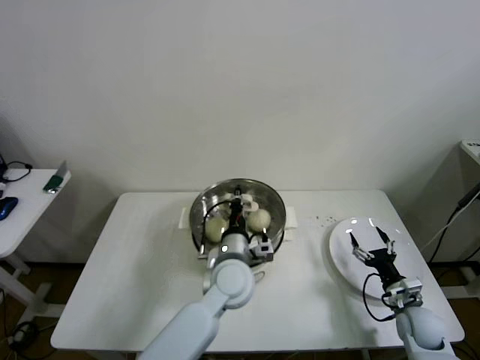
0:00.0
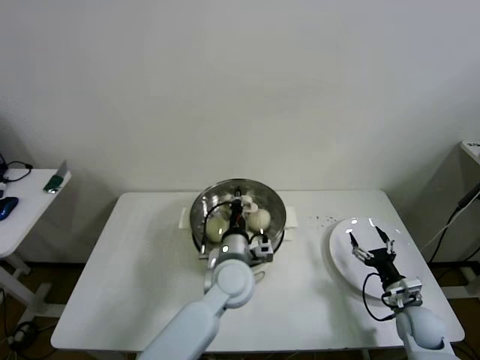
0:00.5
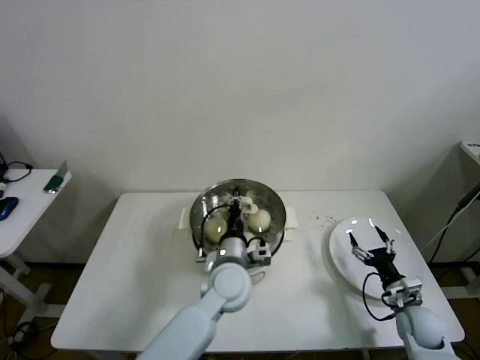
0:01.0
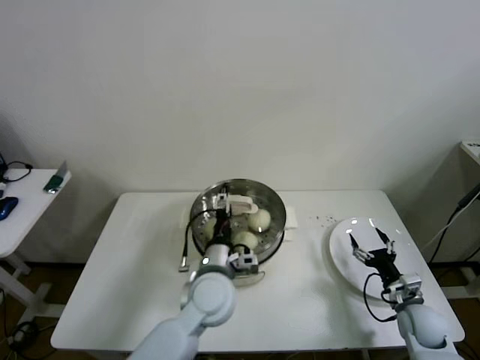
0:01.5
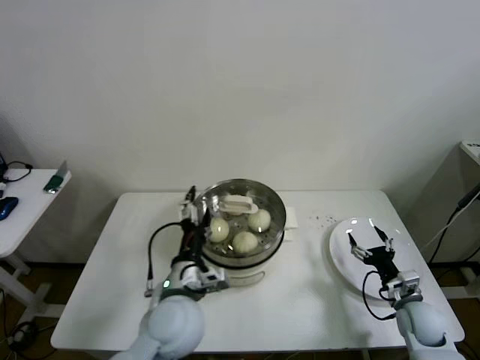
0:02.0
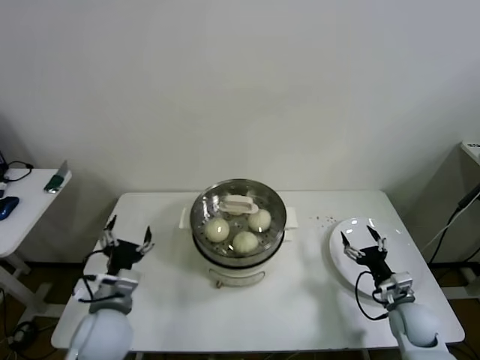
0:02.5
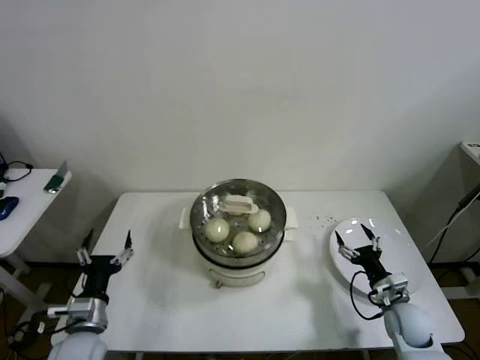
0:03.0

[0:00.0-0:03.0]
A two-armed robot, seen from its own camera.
0:00.0 to 0:01.5: The left gripper opens.
0:01.5 to 0:03.0: The left gripper is displaced to the left by roughly 25 cm.
